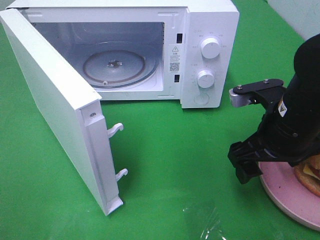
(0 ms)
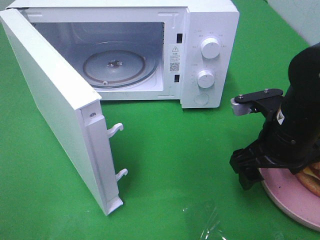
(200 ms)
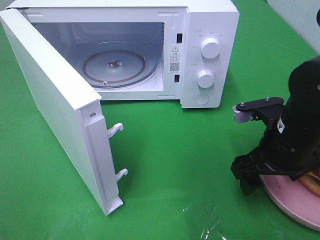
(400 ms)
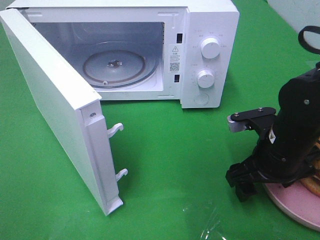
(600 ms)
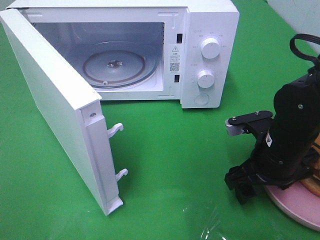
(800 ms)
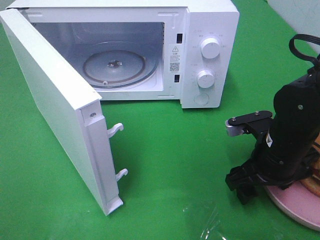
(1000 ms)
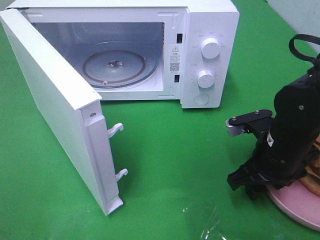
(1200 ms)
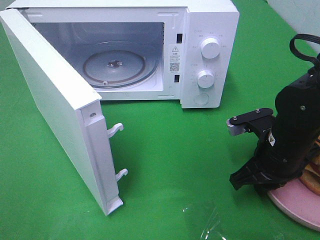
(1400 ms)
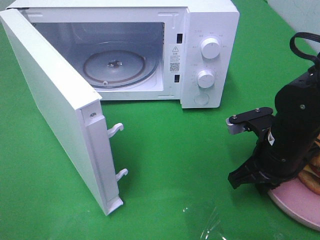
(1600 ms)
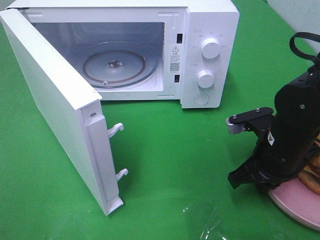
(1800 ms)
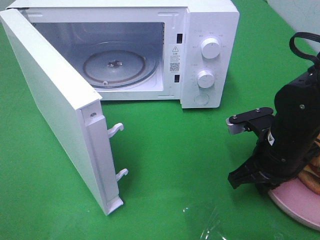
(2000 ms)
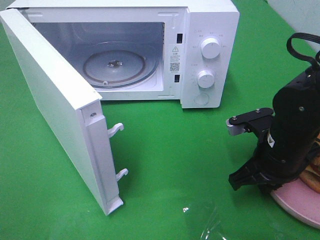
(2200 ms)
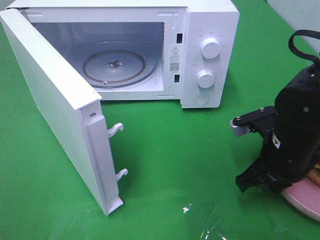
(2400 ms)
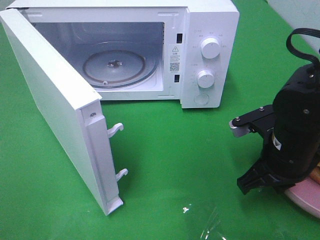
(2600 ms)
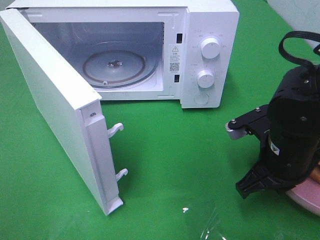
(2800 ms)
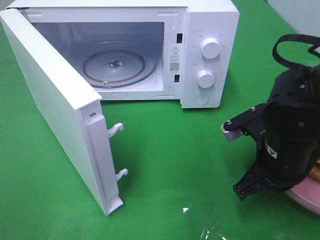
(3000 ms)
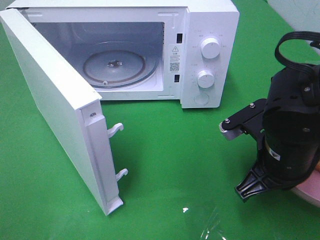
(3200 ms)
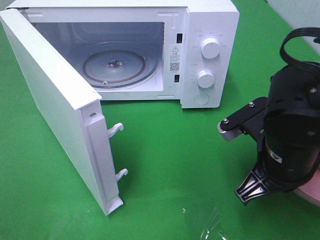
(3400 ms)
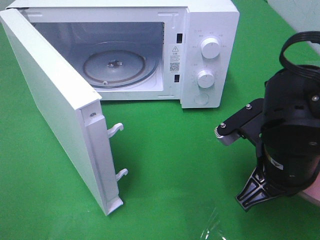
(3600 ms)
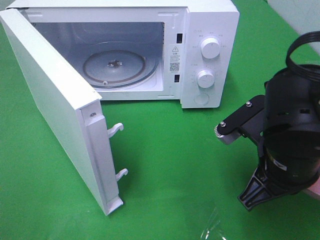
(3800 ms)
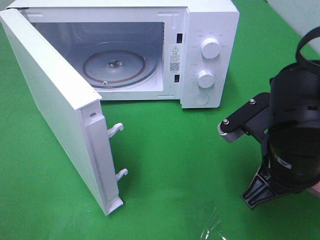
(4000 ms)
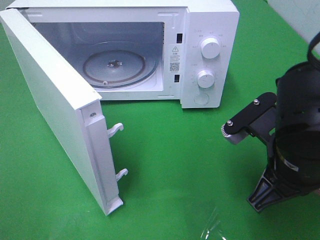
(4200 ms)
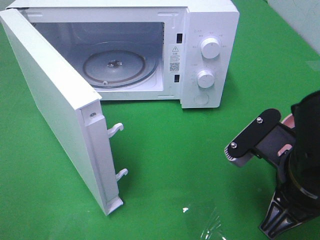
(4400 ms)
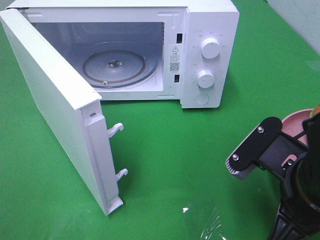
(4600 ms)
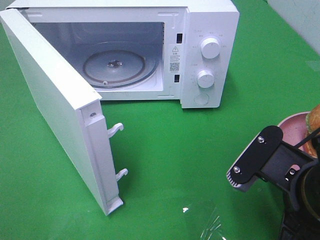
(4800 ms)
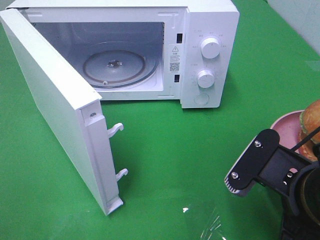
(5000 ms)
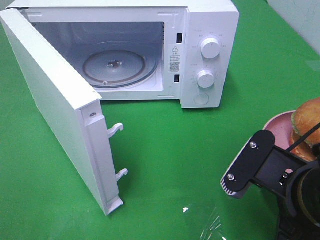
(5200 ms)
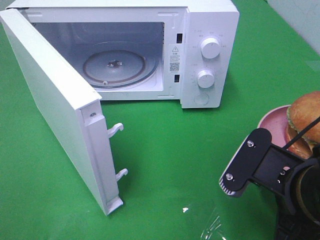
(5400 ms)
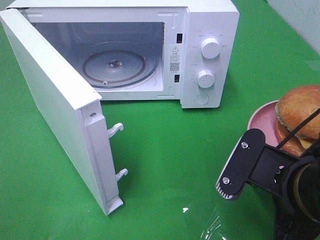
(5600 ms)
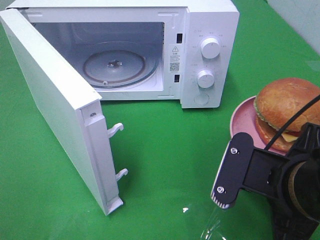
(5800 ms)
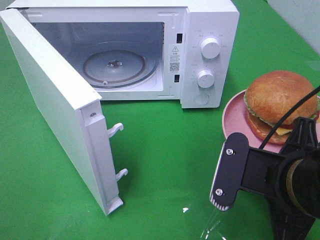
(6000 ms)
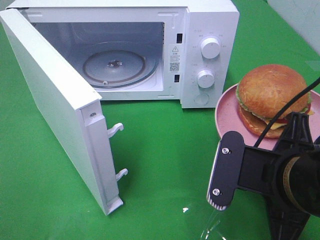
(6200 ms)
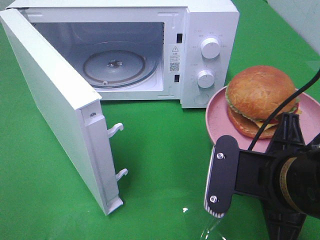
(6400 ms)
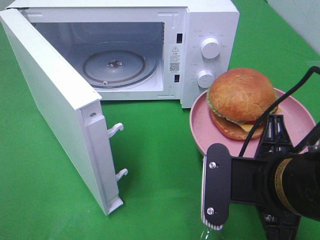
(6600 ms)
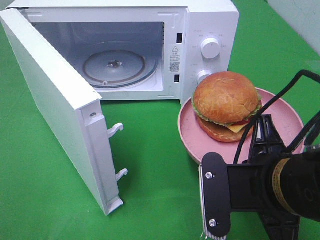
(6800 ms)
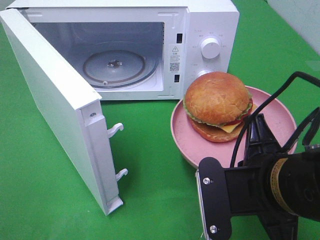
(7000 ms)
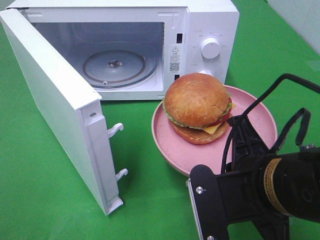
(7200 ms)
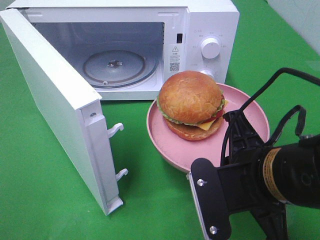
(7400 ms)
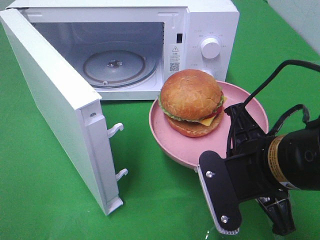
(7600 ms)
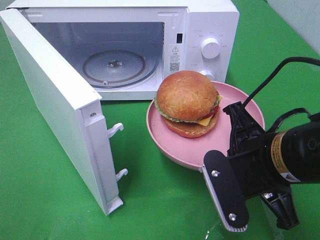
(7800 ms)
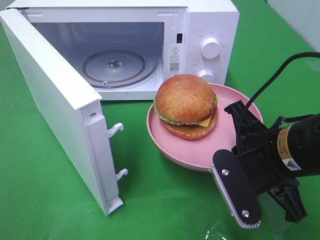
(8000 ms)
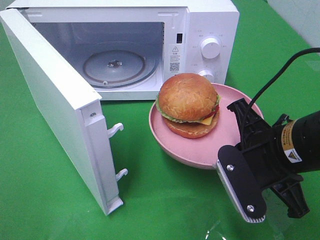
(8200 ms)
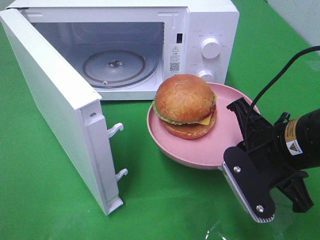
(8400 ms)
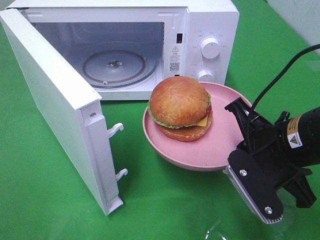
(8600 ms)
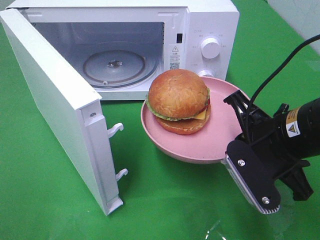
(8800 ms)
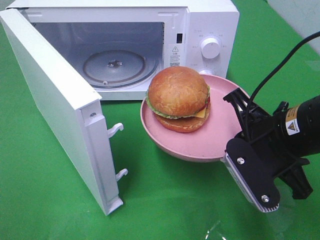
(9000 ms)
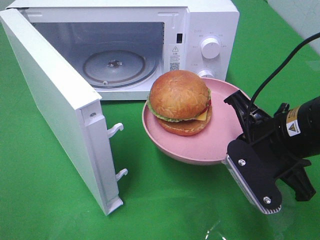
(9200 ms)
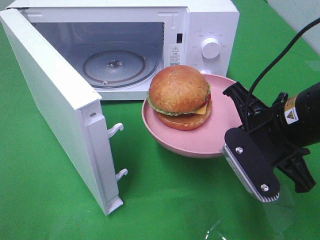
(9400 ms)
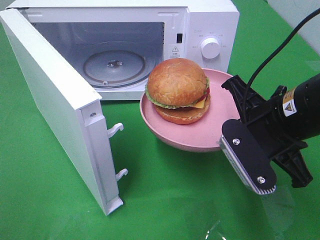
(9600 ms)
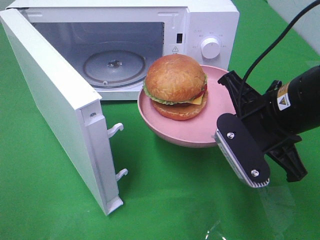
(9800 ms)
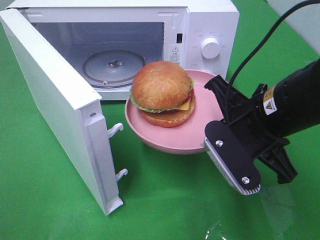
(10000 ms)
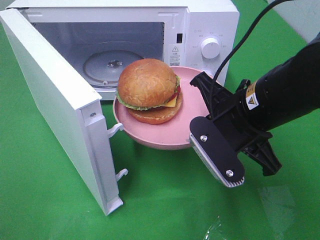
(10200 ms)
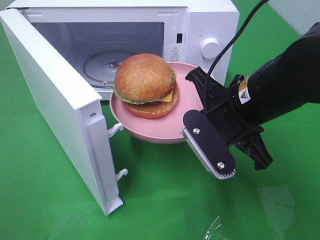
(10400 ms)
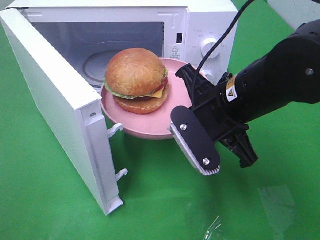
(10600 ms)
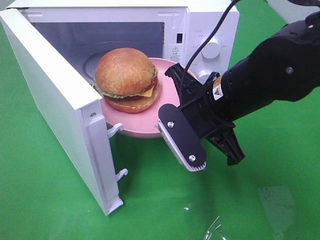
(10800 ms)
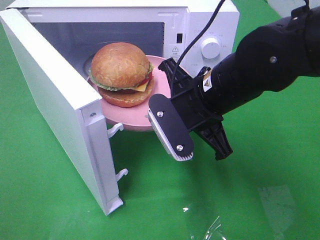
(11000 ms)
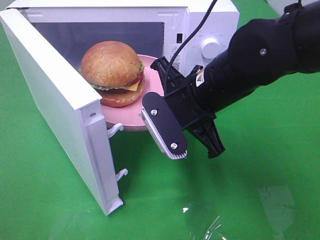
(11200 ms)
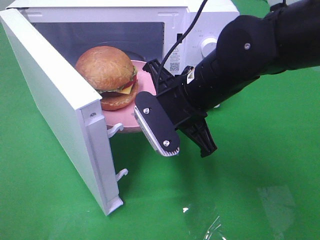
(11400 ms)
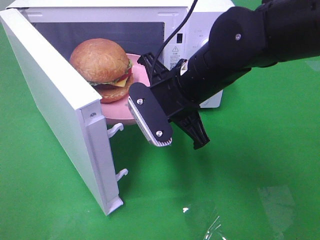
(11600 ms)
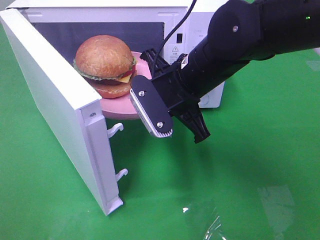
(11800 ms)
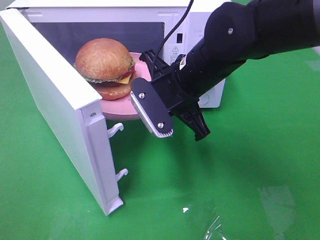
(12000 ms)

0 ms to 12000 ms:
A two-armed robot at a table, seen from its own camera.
Task of the whole recording: Heat the burger.
Step, 0 ms to 3000 ms: Right hand: grab the plate with the hamburger.
0 ms to 1600 ms: The right gripper heads downward, covering roughly 5 cm, and closes up.
1600 ms to 3000 ms: The grippers move only a little.
3000 ms to 4400 ms: The right gripper heads backward, covering about 5 cm.
7600 ms to 9000 ms: The right gripper shifts by roughly 5 cm.
9000 ms to 10400 ms: The right gripper heads to the left, covering about 5 cm.
10400 ms to 12000 ms: The right gripper is displaced forward and to the left by about 10 cm.

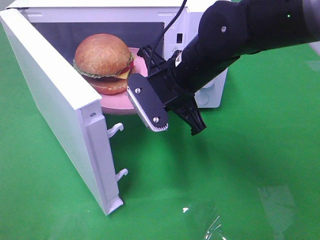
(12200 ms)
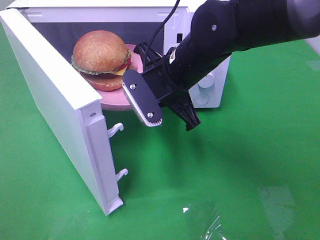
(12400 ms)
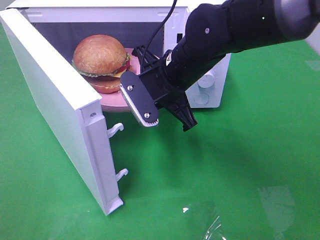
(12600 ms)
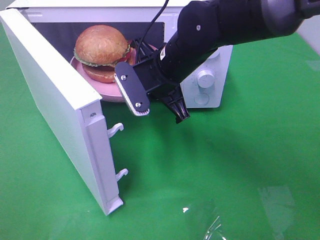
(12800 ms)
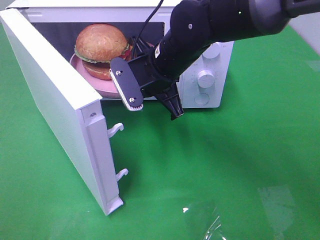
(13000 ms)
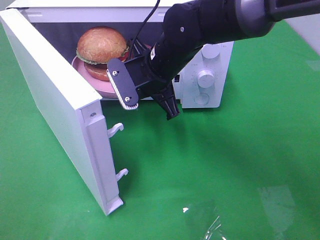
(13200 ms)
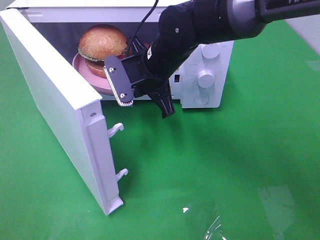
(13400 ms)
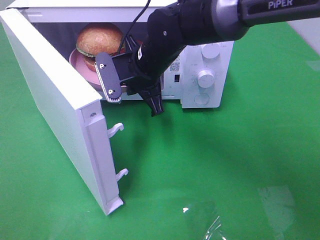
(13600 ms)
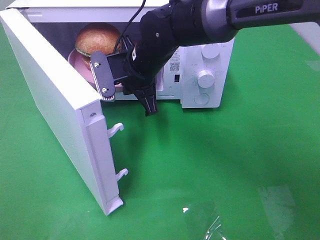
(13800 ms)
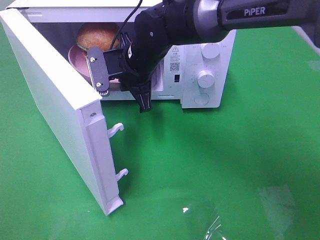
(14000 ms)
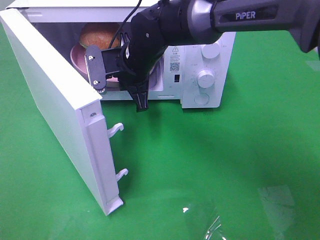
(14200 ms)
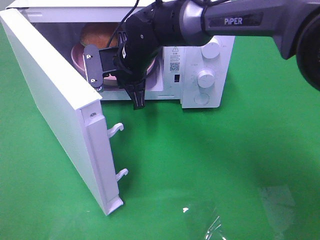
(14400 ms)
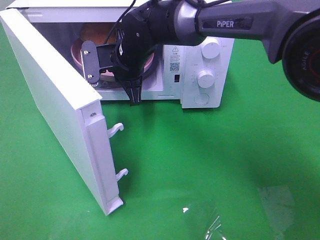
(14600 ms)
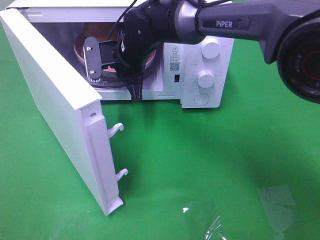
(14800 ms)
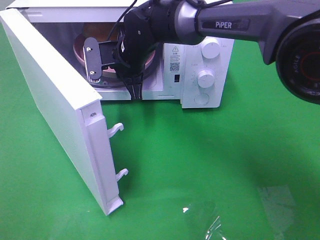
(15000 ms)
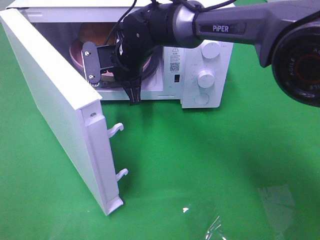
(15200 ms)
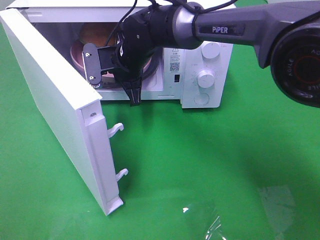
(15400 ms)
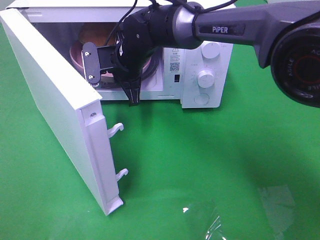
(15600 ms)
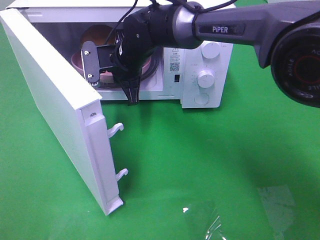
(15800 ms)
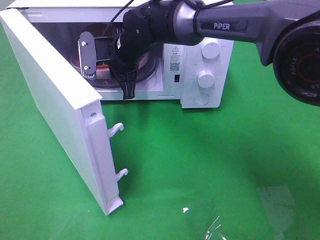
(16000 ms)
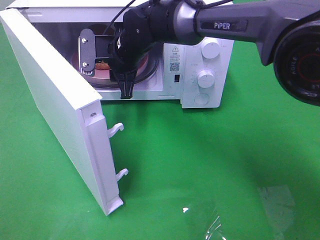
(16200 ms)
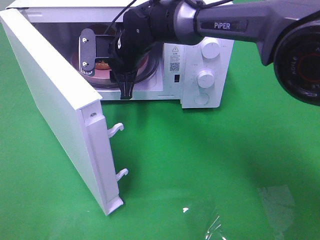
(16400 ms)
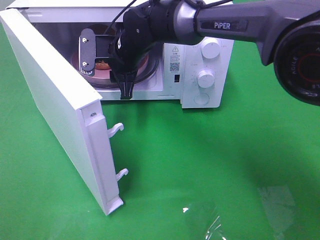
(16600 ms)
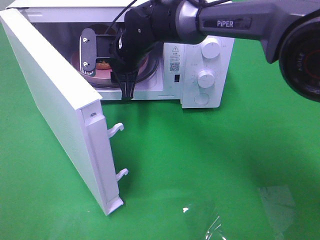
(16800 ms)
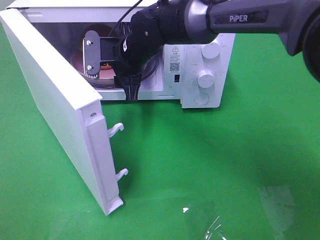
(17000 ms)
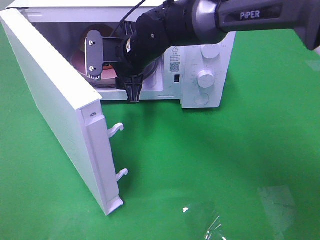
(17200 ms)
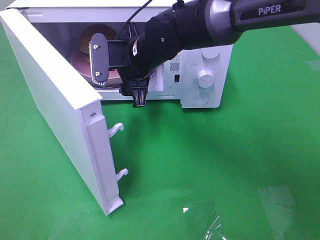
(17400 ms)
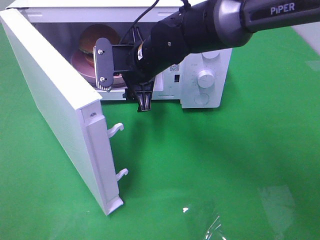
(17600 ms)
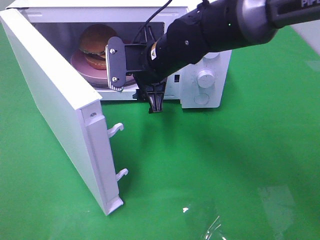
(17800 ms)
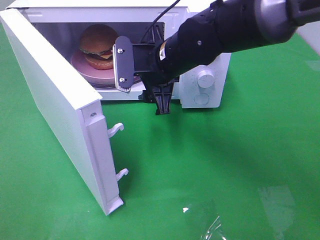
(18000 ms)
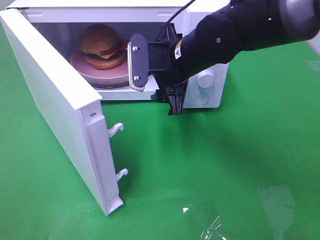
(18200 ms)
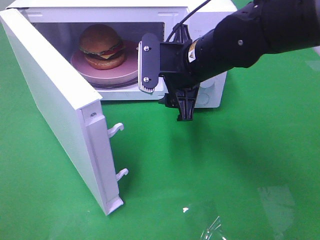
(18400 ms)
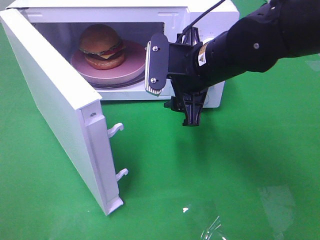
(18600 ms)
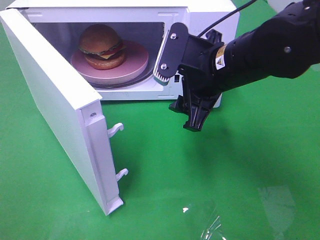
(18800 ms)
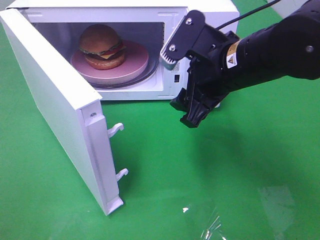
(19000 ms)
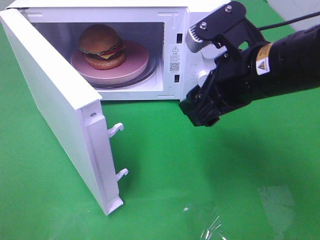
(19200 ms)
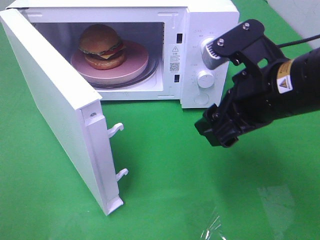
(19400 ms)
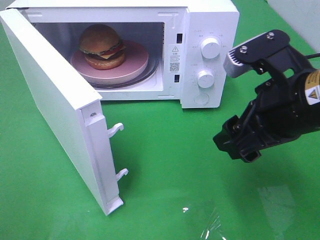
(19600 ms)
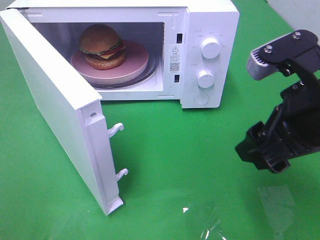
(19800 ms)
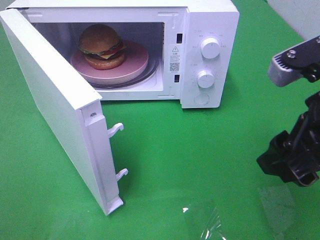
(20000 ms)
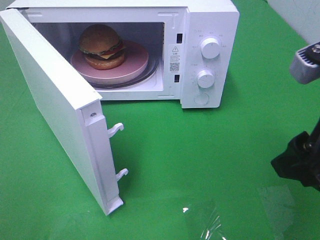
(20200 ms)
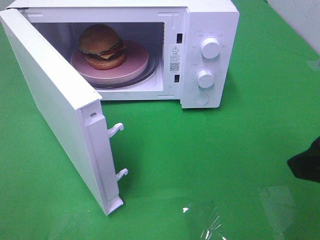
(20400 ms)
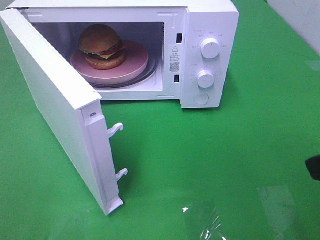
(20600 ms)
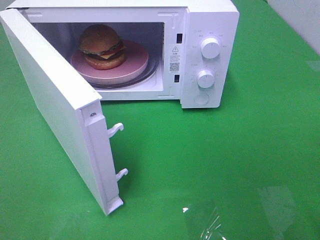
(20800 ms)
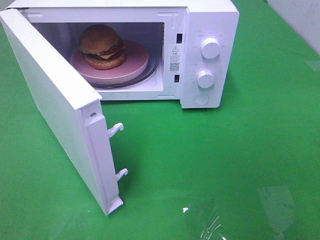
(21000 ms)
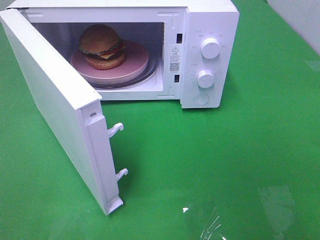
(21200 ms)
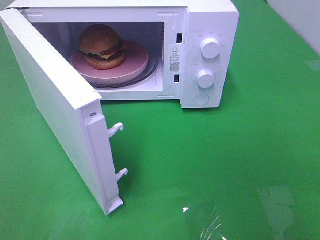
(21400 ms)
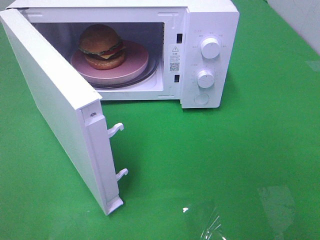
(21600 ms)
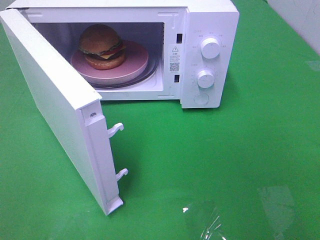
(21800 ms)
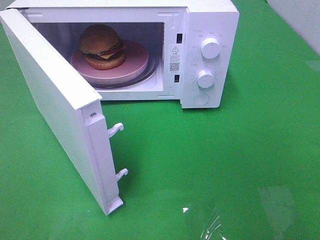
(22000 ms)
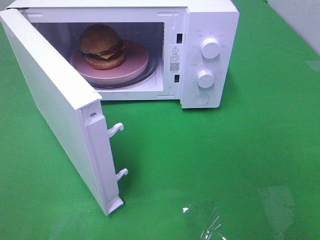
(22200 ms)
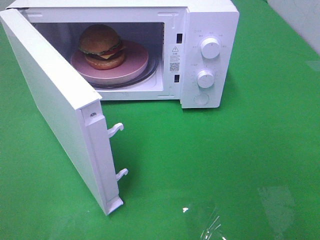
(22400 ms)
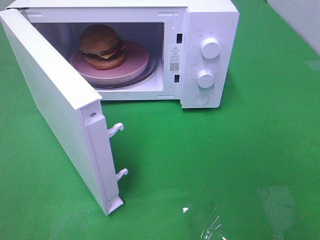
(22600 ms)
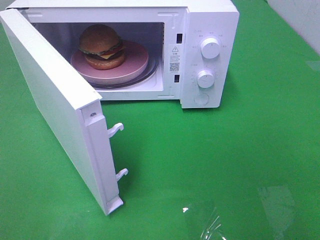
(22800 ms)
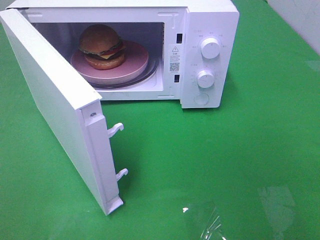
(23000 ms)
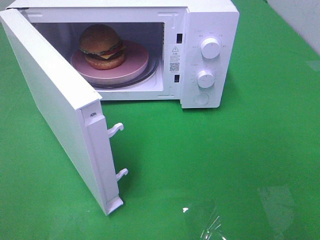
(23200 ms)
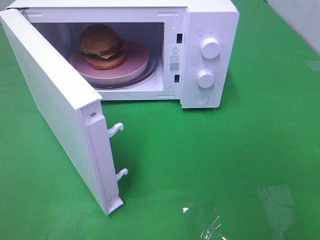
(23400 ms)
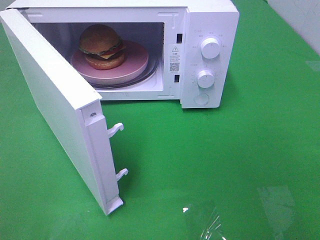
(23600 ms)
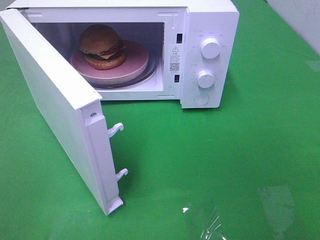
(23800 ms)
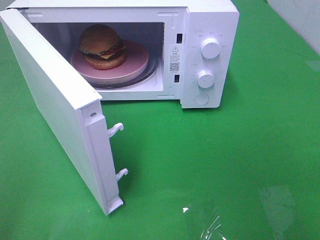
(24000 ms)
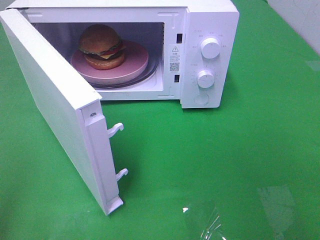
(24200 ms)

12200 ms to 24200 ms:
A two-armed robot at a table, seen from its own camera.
Task of the whole recording: Heat the burger.
Step, 12200 ms to 16400 ms: Right hand: place the plate in the microwave.
12200 ms to 13800 ms: The right gripper moves forward and to the left, some 10 cm.
13800 ms to 15200 ms: The right gripper moves some 5 cm.
15200 ms to 16600 ms: The right gripper opens its fingers.
16600 ms to 18200 ms: The right gripper moves to the right and backward, some 15 cm.
18200 ms to 19800 ms: The right gripper is displaced backward and to the right by approximately 20 cm.
19800 ms to 21200 ms: The right gripper heads backward and to the right, covering roughly 15 cm.
